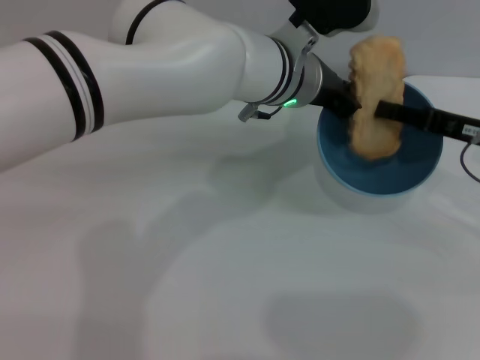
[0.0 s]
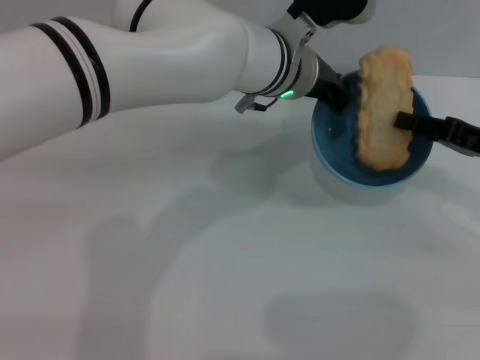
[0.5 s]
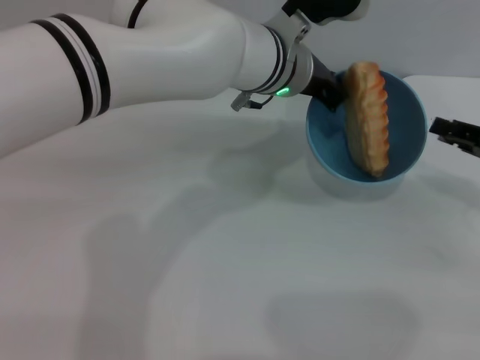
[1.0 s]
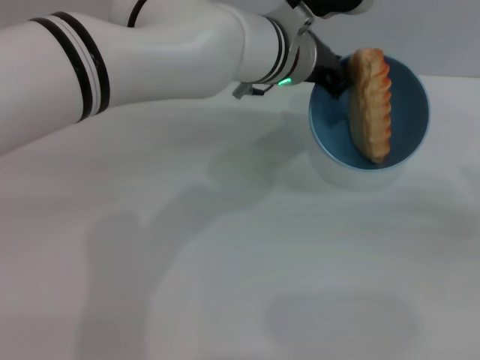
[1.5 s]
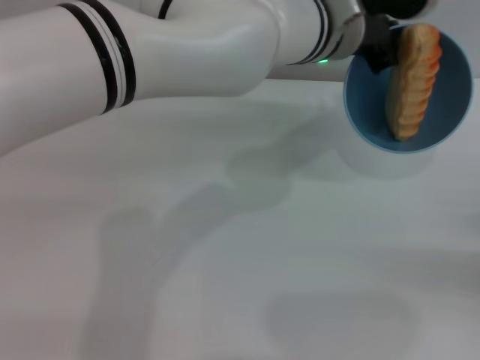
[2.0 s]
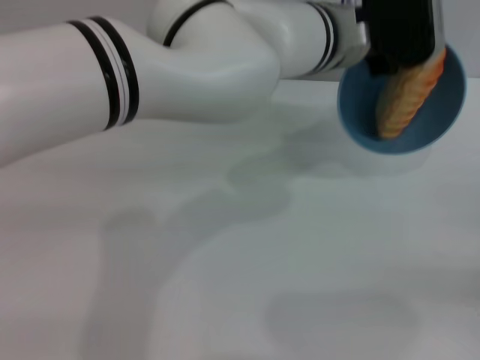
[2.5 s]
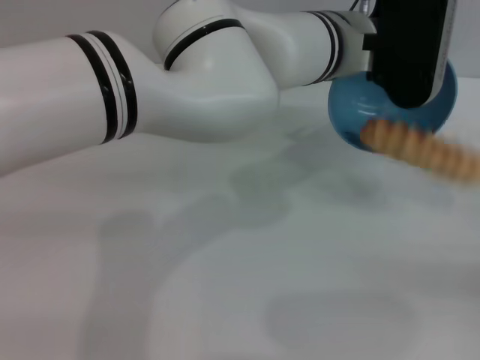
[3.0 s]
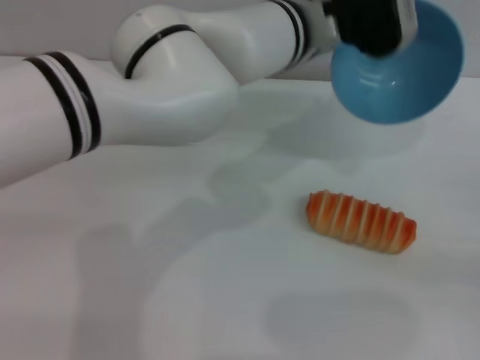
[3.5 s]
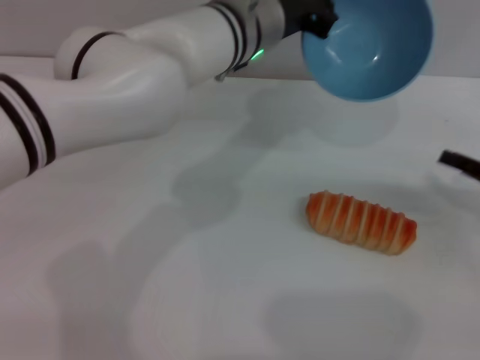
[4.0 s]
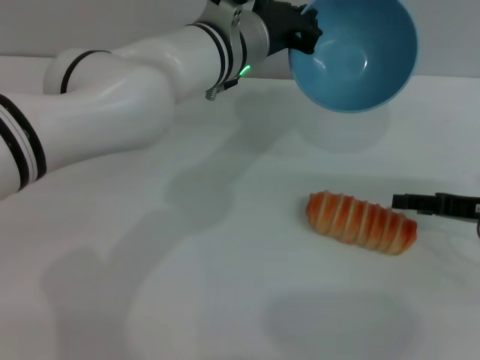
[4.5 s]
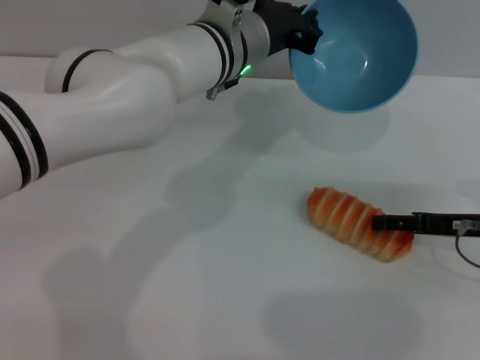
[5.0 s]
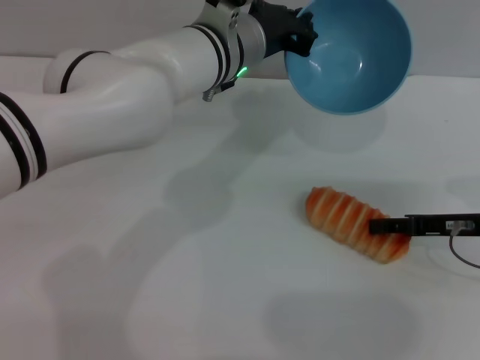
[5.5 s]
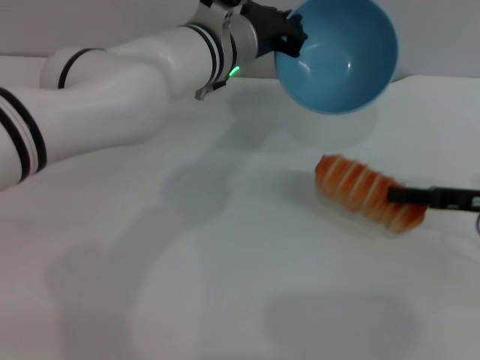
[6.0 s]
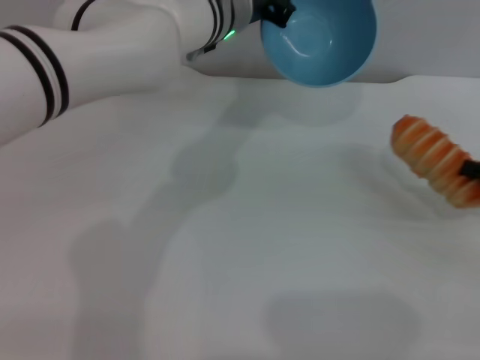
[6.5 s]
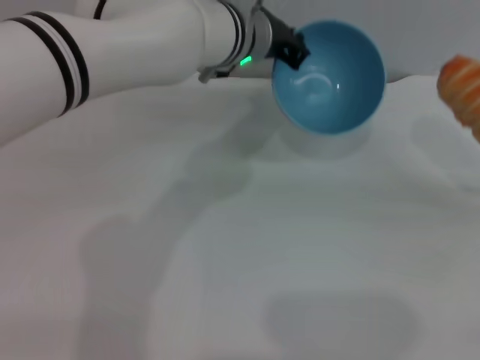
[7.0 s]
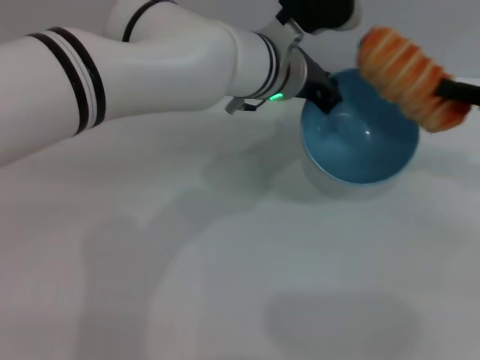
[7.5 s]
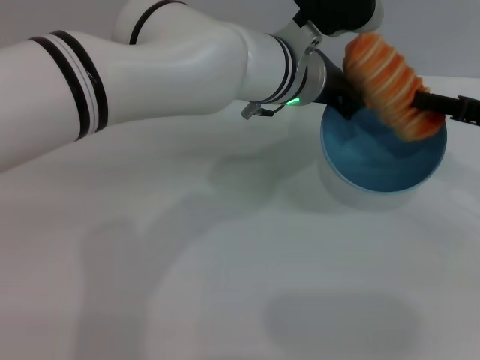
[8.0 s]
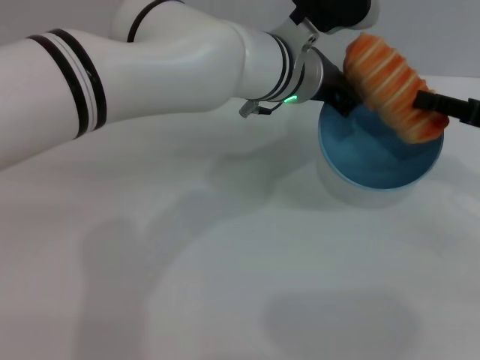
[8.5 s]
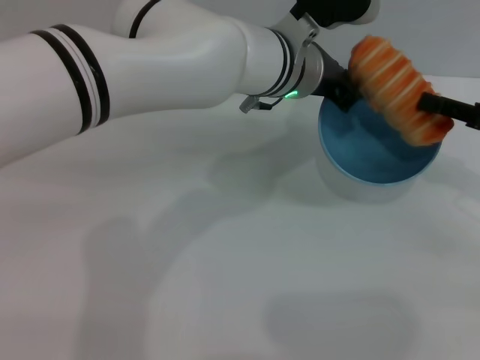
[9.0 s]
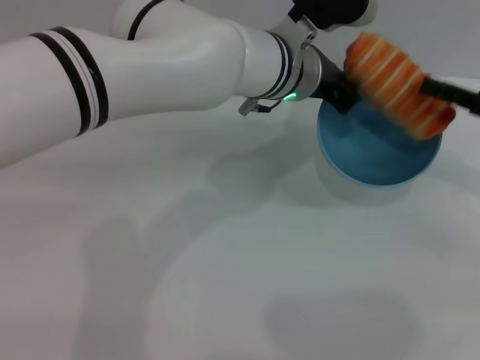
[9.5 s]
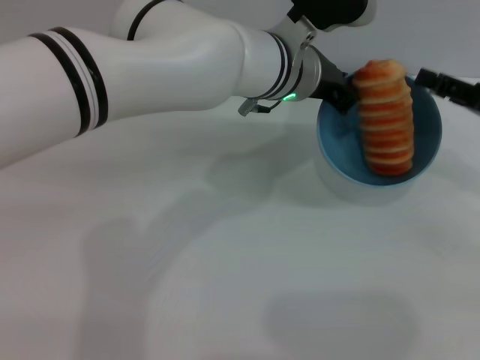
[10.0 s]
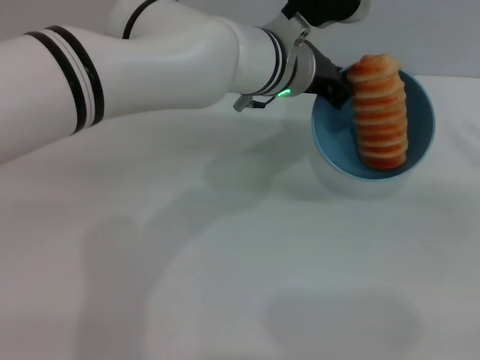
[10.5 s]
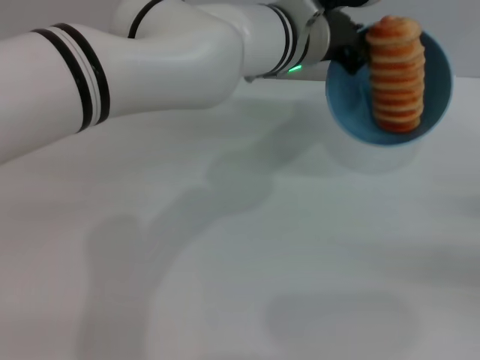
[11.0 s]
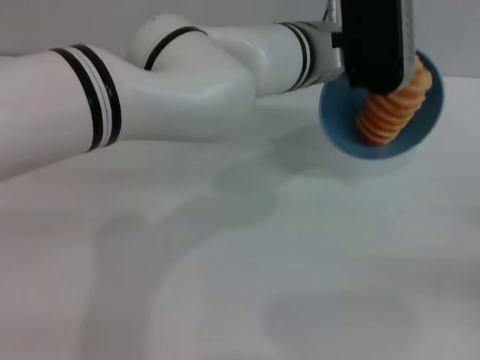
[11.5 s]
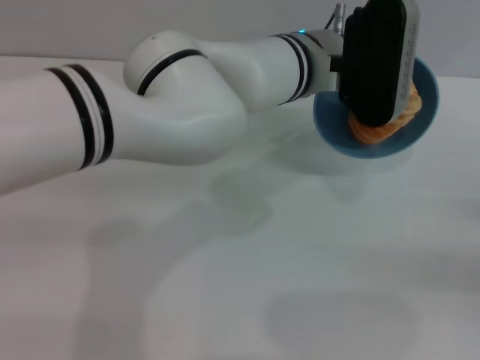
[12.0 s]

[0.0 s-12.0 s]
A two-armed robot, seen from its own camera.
Task of the whole recording: put the bread into the blue bowl and pour it out repeatedly.
Step, 1.5 to 3.0 s: Pour the bread out of the bowl.
Step, 3.5 to 6.0 s: Pick up the bread with the right gripper.
Step, 6.5 to 10.5 s: Place the bread into the bowl.
0.0 to 2.0 s: The right gripper goes some 20 cm to the right, backward and downward, and opens.
2.0 to 4.0 s: The left gripper shifts about 5 cm to the left. Meanwhile the right gripper moves forward and to the left, about 10 cm.
4.0 to 6.0 s: The right gripper closes up.
6.0 to 8.0 s: The left gripper goes about 5 cm to the right. Meanwhile the right gripper goes to the right and returns, some 10 cm each way, and closes.
8.0 to 10.0 s: The right gripper opens its fingers.
10.0 to 12.0 s: The right gripper travels backward, to the right and downward by approximately 15 cm.

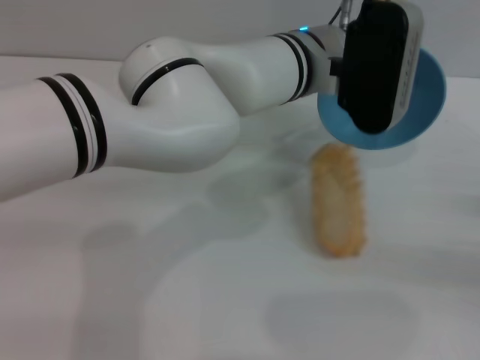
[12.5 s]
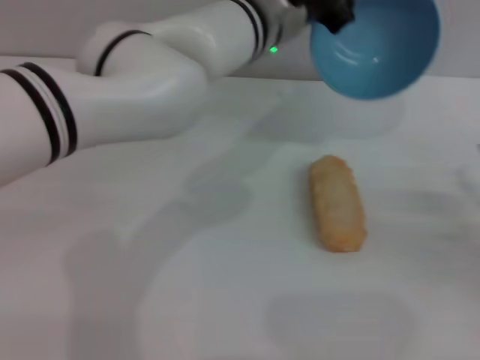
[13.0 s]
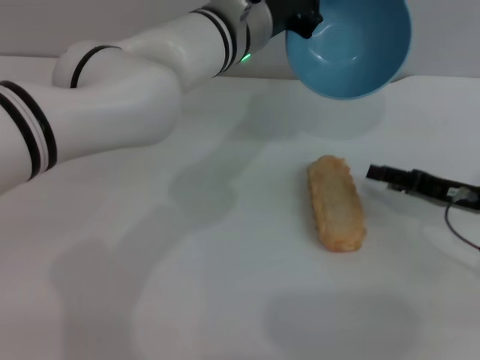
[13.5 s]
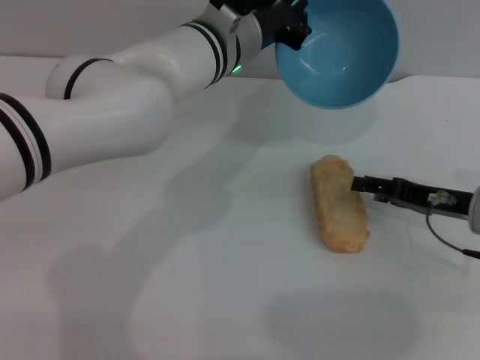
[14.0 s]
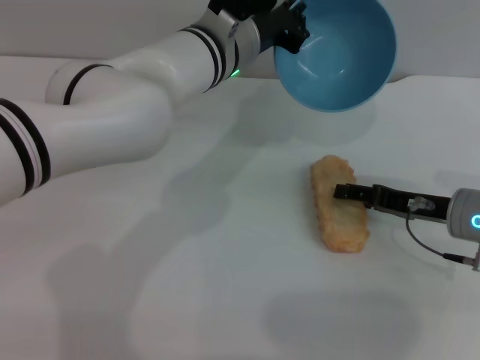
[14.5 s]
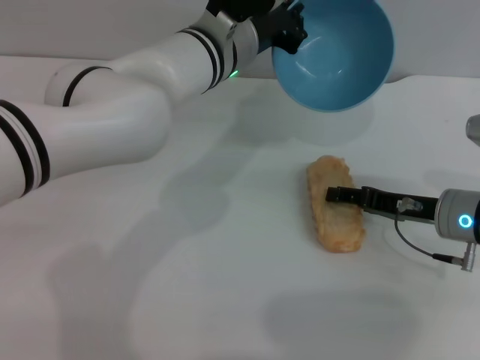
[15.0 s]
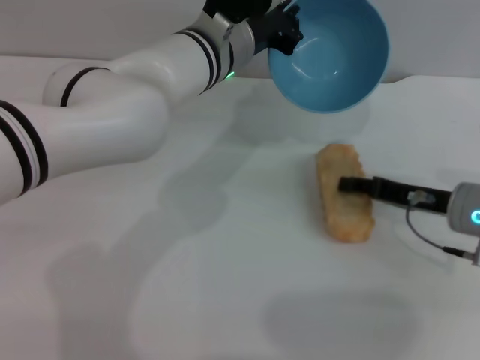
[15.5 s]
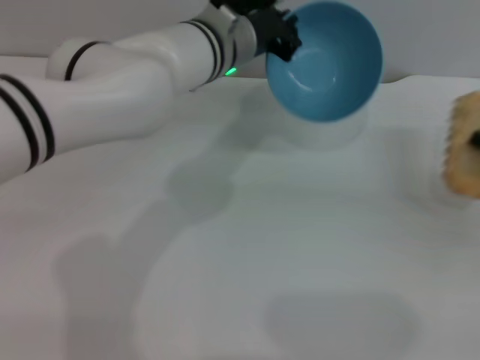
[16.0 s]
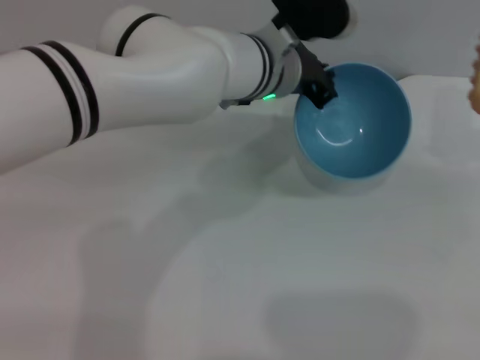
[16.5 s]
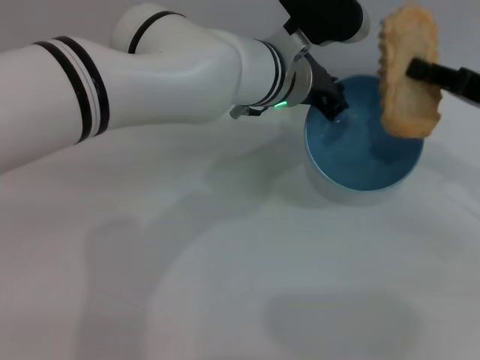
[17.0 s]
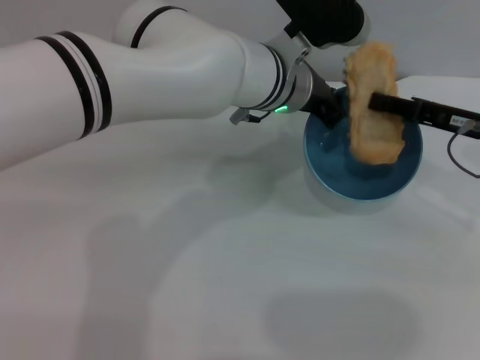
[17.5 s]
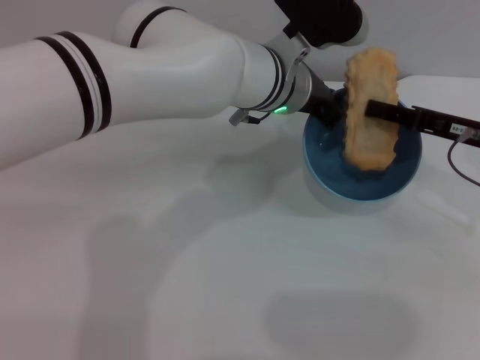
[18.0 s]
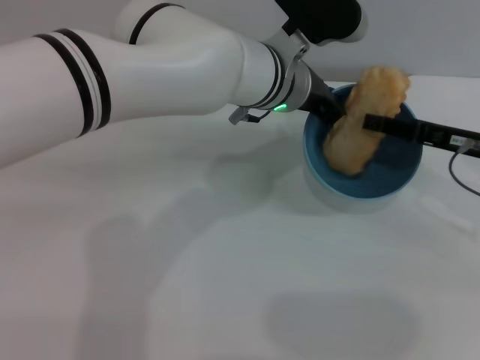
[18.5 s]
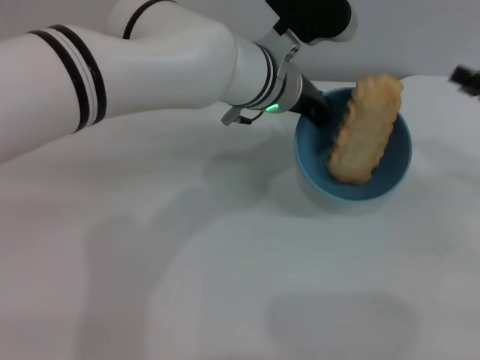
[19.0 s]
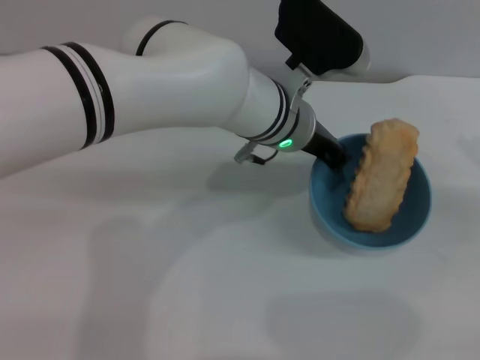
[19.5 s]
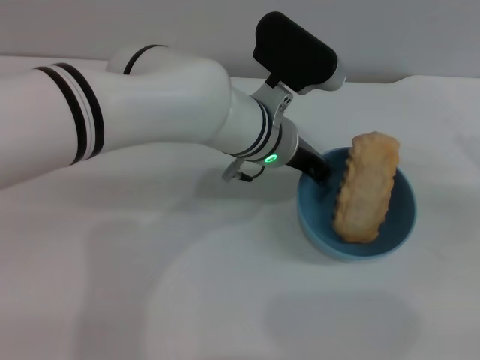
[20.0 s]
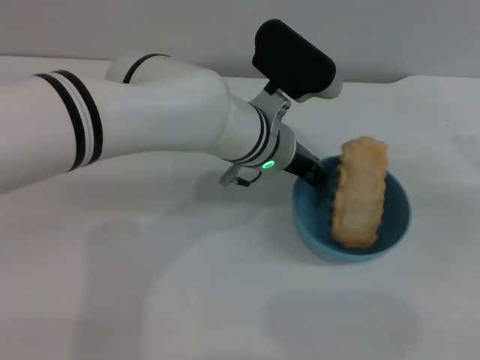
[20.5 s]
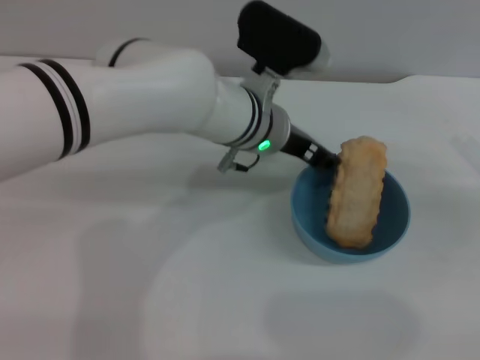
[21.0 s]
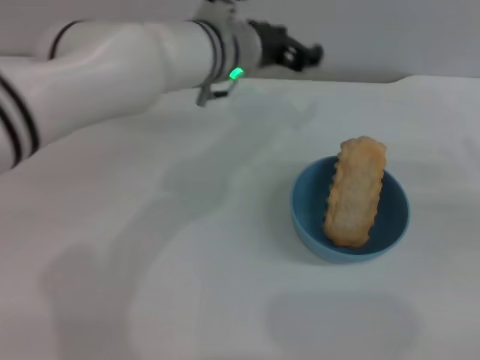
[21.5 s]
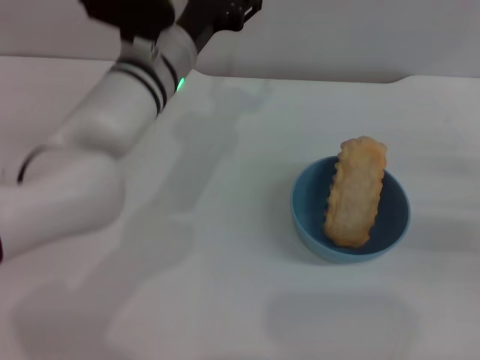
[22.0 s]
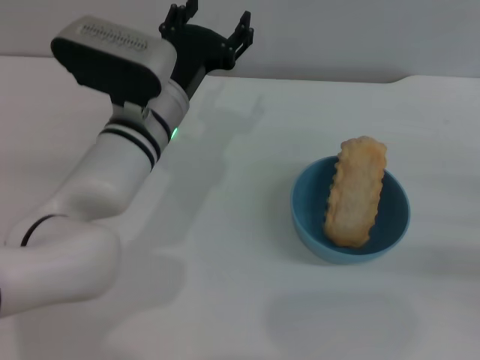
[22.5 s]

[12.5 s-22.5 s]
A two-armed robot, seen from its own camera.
Task of the whole recording: put the bread into the blue bowl and pour it out repeatedly.
Step, 13.5 to 15.5 s: Pick up the bread with the right gripper.
Step, 16.0 to 18.5 s: Place the bread into the bowl.
Step, 19.5 to 21.0 s: Place the bowl on the table.
12.5 to 14.5 s: The left gripper goes roughly 5 cm to the left; the right gripper heads to the left and forward, covering some 15 cm.
14.5 to 16.5 s: The right gripper moves to the right and upward, some 15 cm, and closes up.
16.5 to 18.5 s: The right gripper shifts about 10 cm to the left, and opens its fingers.
18.5 to 20.5 s: The left gripper moves about 5 cm. Meanwhile the right gripper is displaced to the right by approximately 10 cm.
20.5 to 22.5 s: The right gripper moves downward, some 5 cm, while the left gripper is displaced to the left by about 10 cm, and opens.
